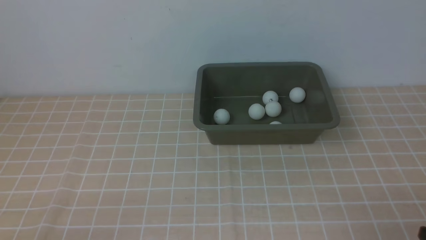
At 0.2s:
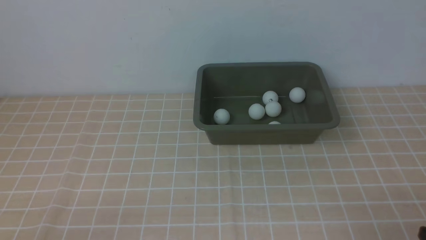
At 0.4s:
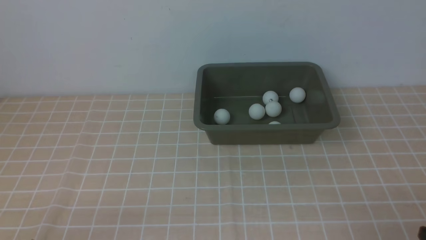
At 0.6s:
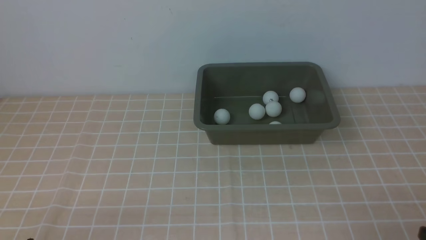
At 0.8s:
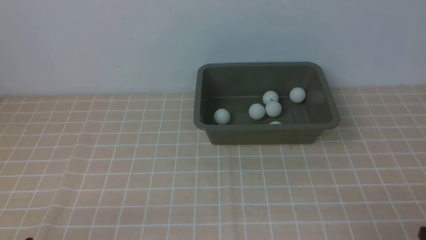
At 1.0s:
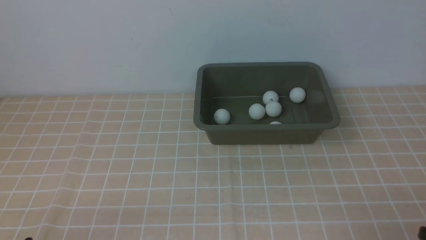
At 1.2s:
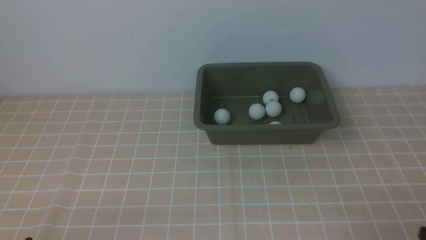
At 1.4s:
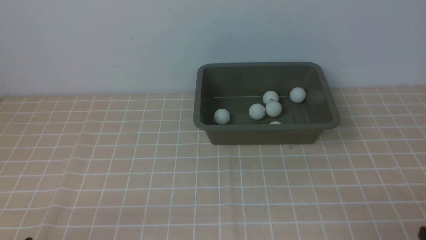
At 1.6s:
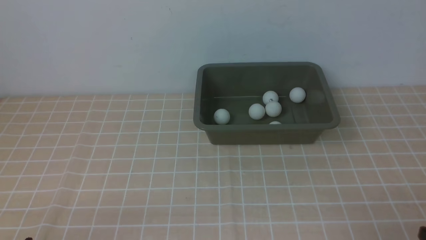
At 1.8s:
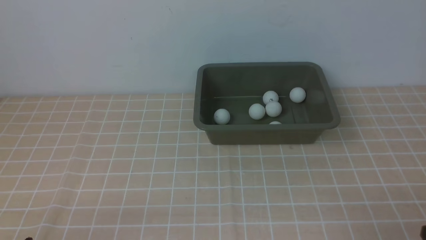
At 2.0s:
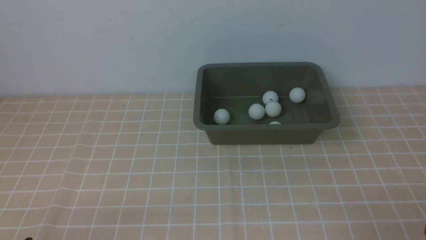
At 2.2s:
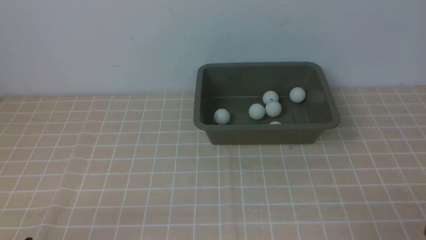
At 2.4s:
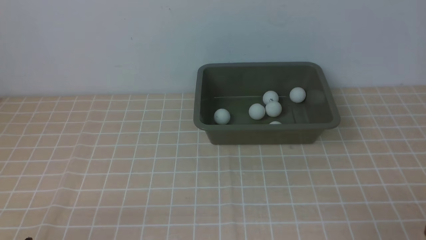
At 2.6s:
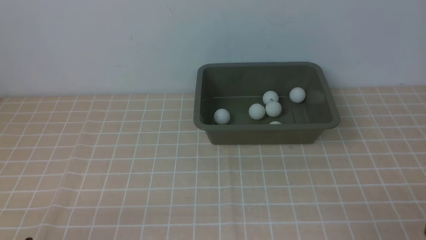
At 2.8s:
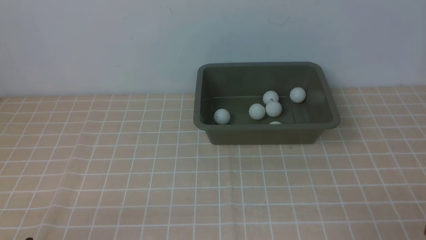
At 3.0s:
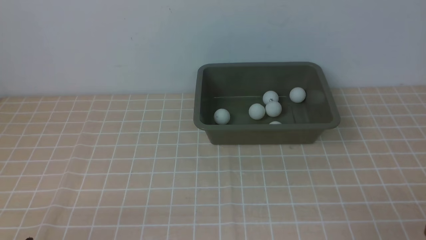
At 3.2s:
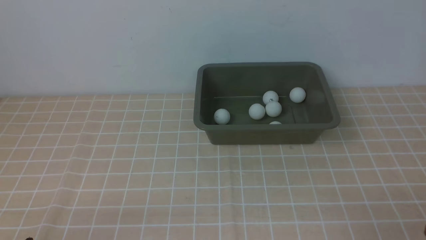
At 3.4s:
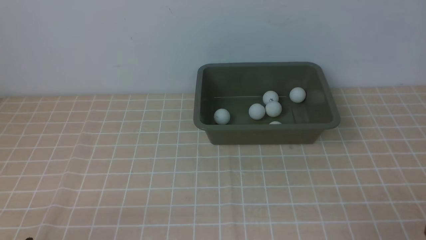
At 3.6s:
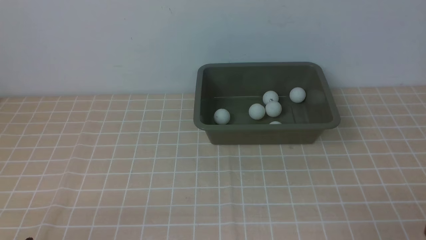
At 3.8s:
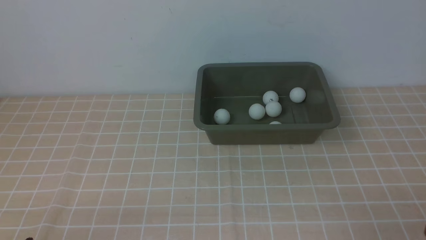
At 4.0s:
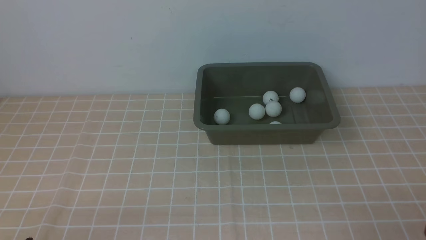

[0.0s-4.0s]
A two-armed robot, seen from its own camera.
2.6s to 4.0s: Both grippers stay put.
